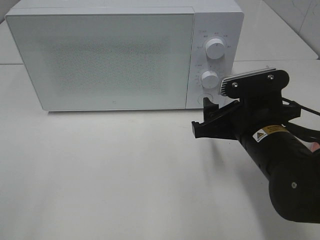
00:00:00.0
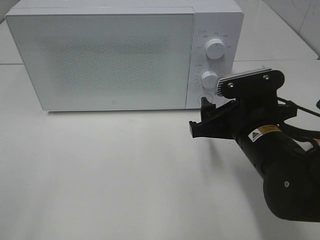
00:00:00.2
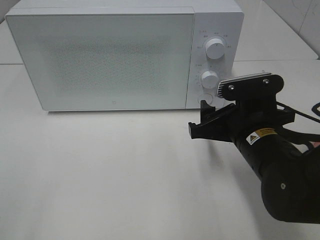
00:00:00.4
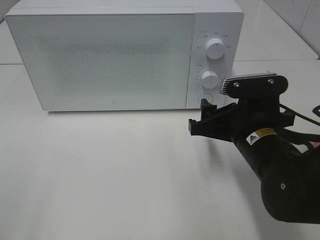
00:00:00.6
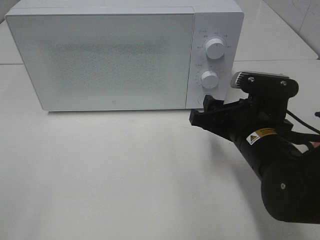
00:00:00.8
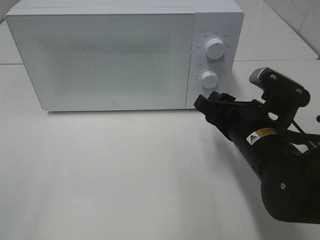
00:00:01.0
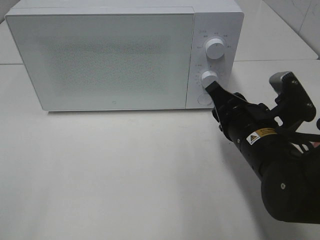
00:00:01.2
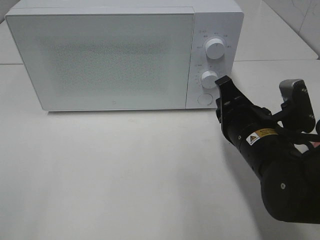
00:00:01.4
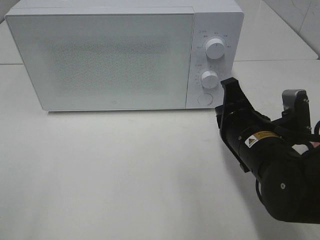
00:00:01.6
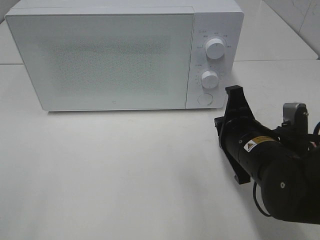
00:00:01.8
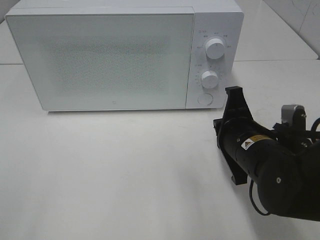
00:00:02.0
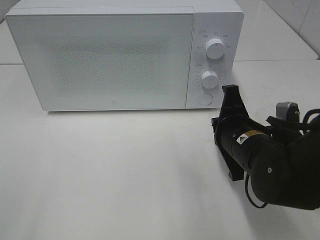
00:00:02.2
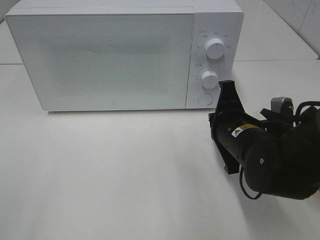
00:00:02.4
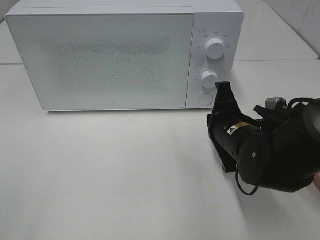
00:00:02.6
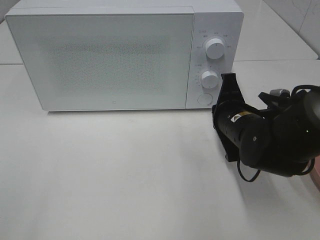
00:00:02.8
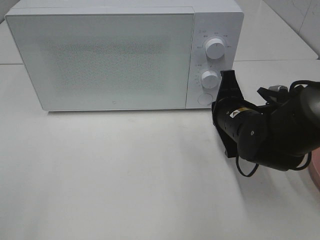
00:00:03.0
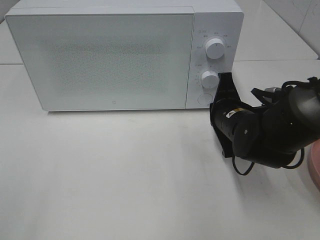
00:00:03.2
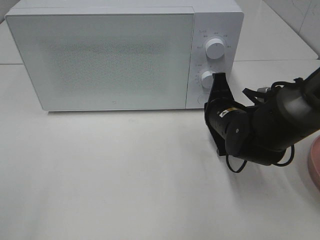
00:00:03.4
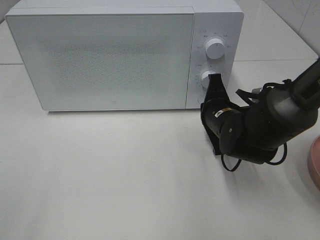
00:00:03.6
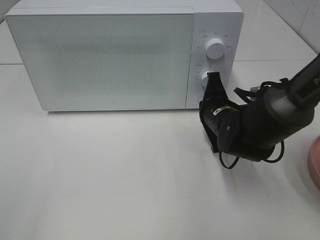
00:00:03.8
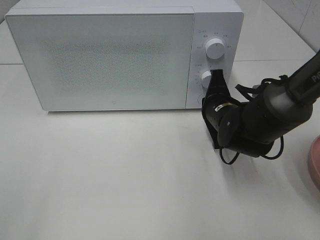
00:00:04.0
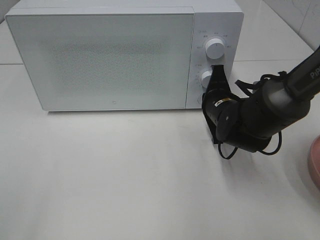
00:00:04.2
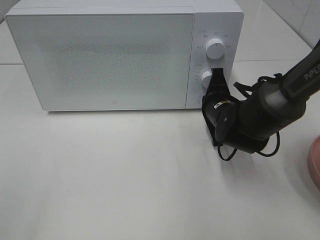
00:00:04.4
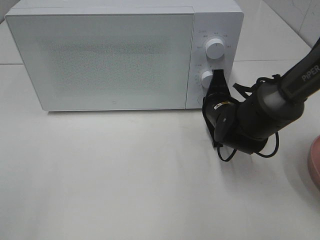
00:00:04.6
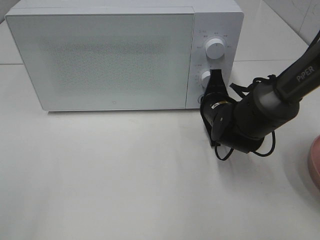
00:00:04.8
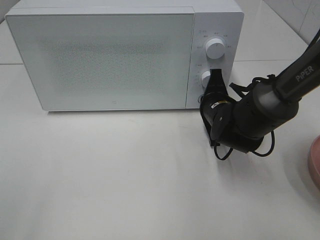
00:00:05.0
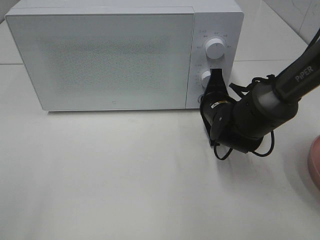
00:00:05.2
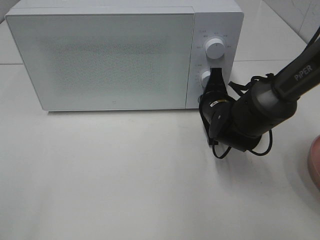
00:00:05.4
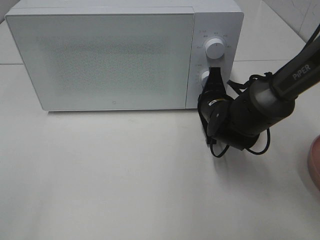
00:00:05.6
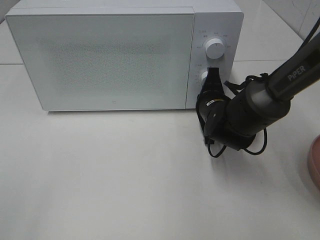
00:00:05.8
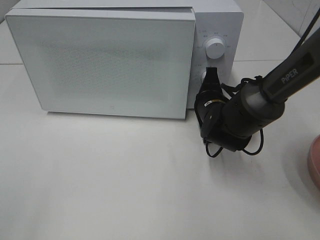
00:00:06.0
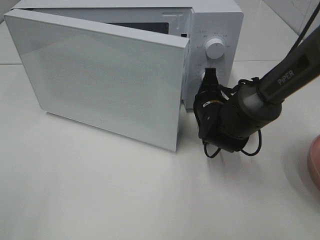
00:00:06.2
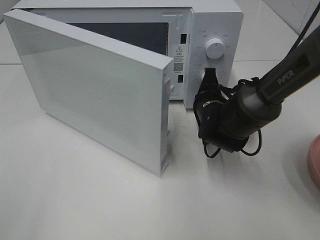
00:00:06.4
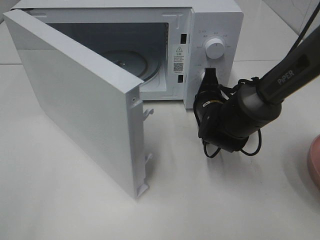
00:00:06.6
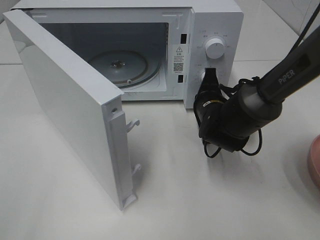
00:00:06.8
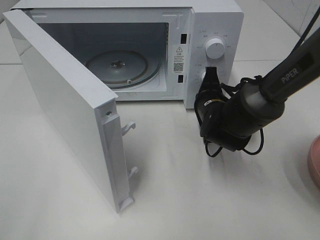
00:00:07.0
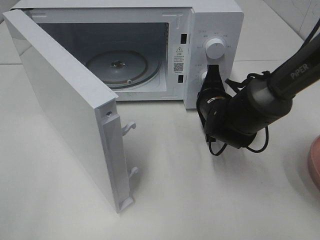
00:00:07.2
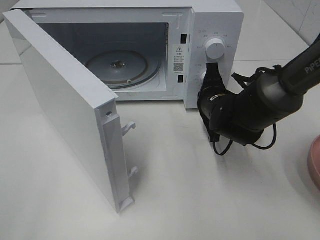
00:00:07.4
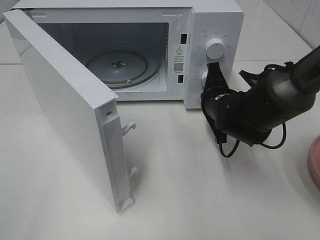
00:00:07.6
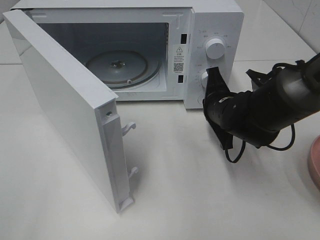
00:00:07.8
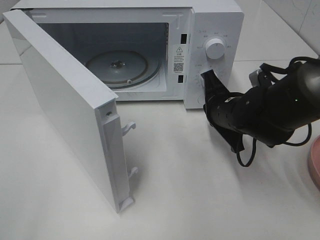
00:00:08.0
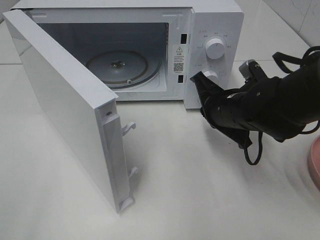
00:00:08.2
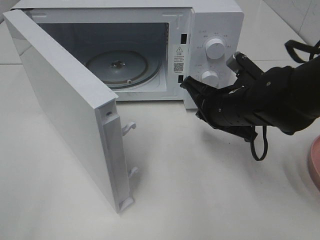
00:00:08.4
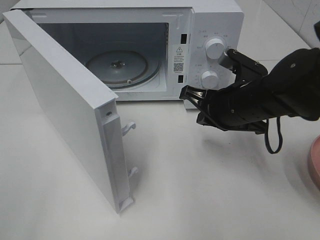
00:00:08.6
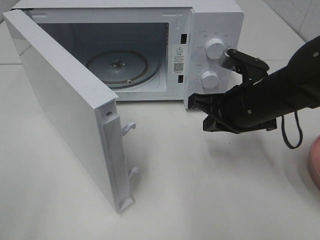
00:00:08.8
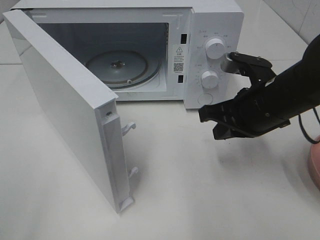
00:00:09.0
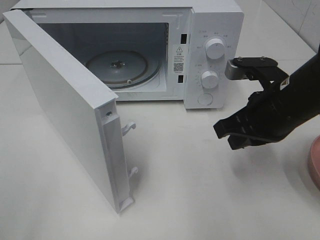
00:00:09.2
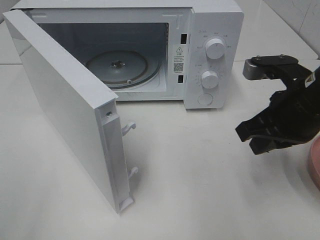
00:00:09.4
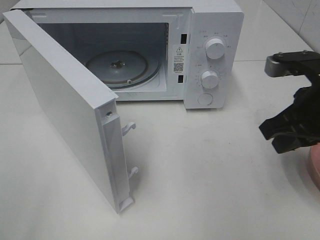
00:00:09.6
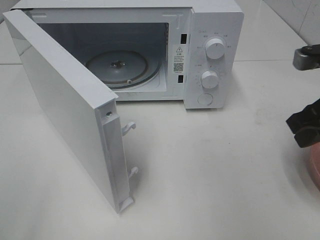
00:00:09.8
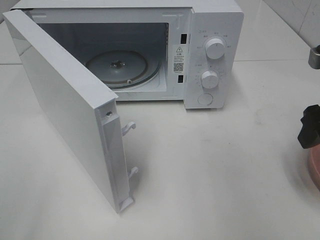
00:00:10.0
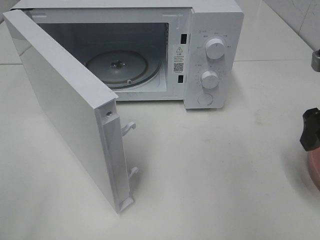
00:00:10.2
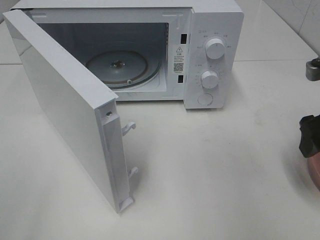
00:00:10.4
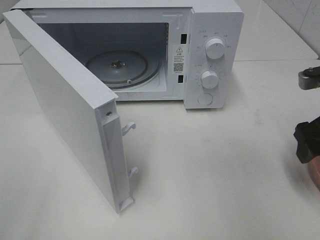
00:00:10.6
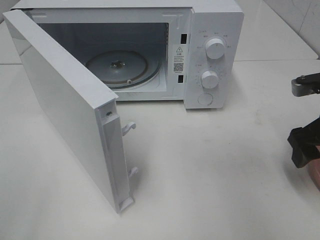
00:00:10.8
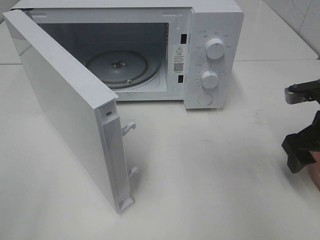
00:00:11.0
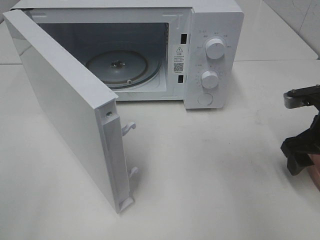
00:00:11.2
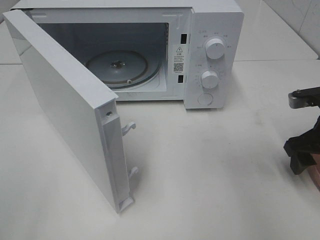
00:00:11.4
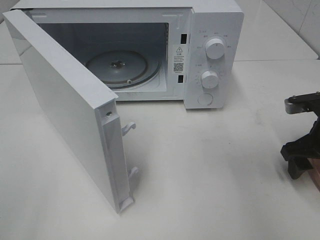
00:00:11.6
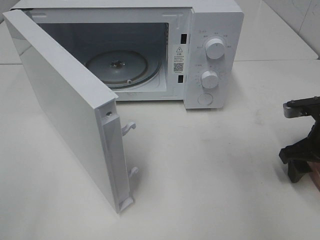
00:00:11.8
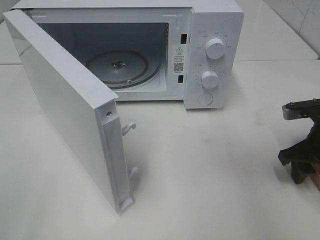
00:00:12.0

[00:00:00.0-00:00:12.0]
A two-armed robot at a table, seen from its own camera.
Task of the whole recording: Heat the burger.
Step, 00:00:00.0 to 00:00:07.6: Right hand: press the switch.
00:00:00.0 to 00:00:01.6: The right gripper closes.
00:00:01.6 to 00:00:03.0: The right gripper is displaced forward by roughly 5 cm.
00:00:03.0 to 00:00:04.4: The right gripper shifts approximately 5 cm forward.
00:00:04.4 to 00:00:06.0: The grippers make only small movements.
00:00:07.6 to 00:00:09.0: The right gripper travels upward and backward by some 10 cm.
00:00:09.0 to 00:00:10.4: The right gripper goes some 10 cm to the right, and opens up.
00:00:10.4 to 00:00:12.0: The right gripper heads downward, covering approximately 10 cm.

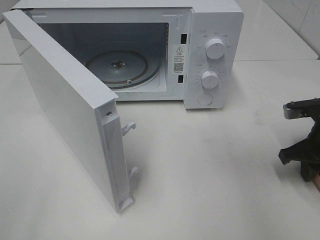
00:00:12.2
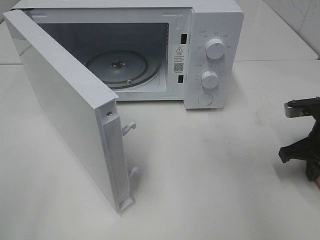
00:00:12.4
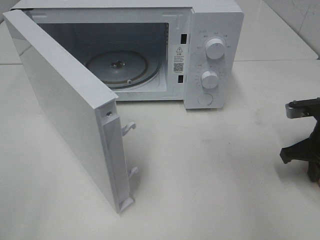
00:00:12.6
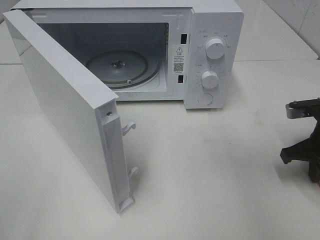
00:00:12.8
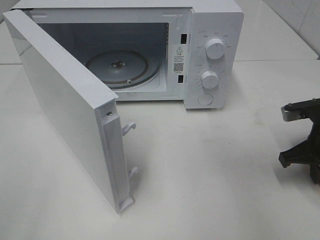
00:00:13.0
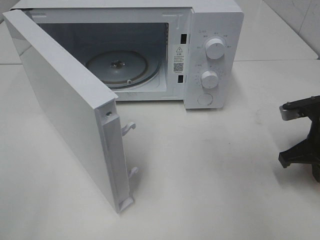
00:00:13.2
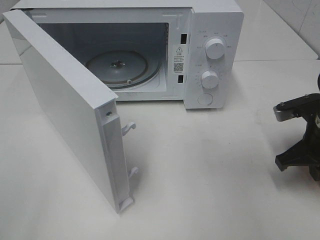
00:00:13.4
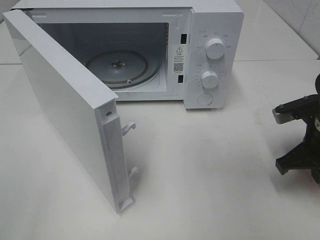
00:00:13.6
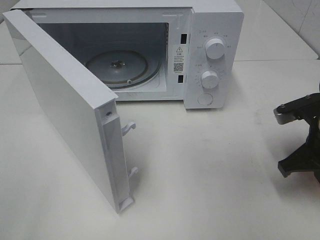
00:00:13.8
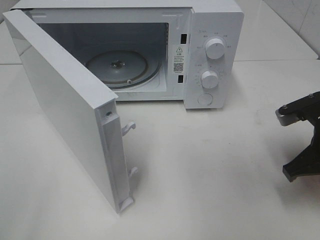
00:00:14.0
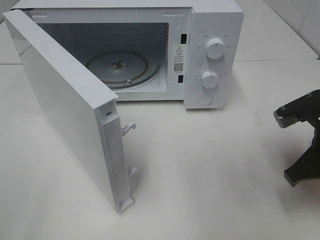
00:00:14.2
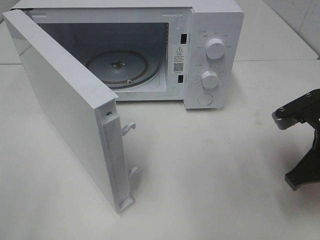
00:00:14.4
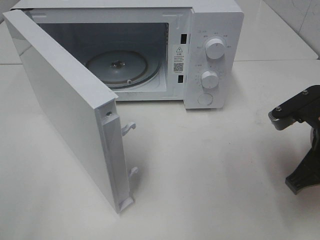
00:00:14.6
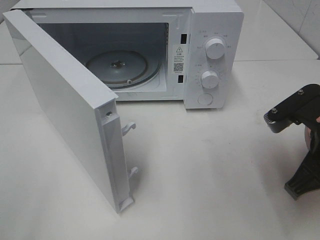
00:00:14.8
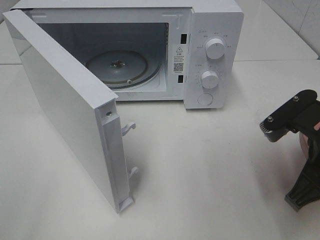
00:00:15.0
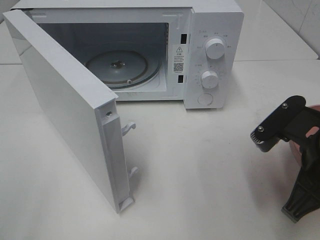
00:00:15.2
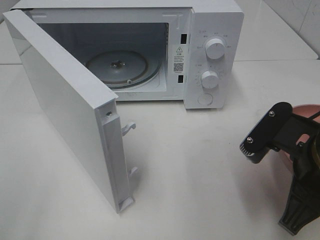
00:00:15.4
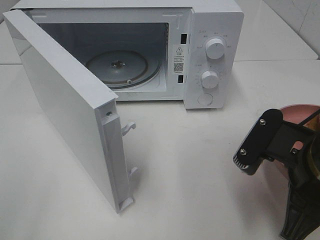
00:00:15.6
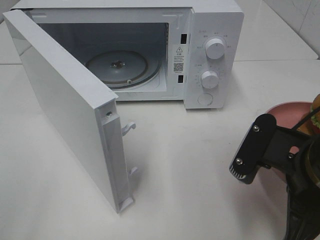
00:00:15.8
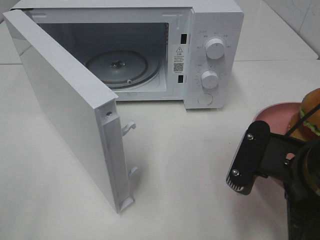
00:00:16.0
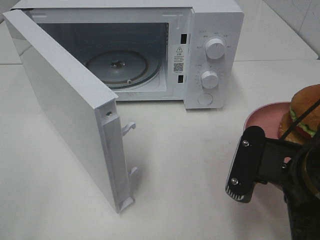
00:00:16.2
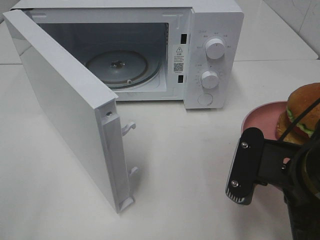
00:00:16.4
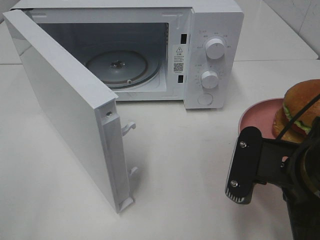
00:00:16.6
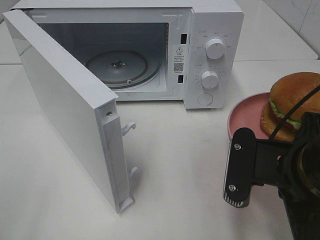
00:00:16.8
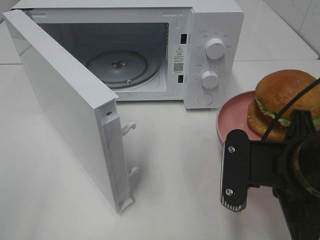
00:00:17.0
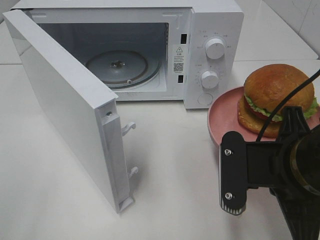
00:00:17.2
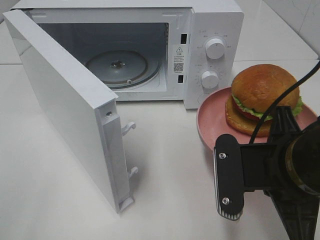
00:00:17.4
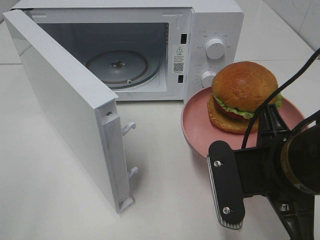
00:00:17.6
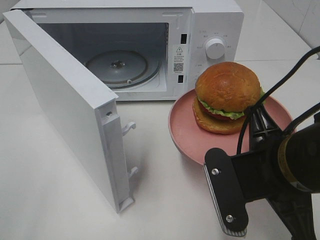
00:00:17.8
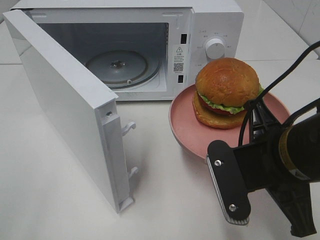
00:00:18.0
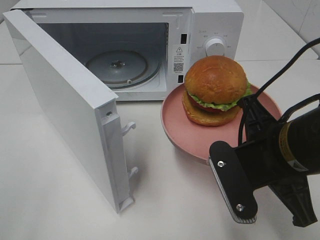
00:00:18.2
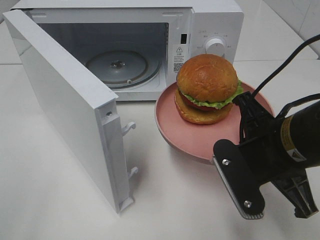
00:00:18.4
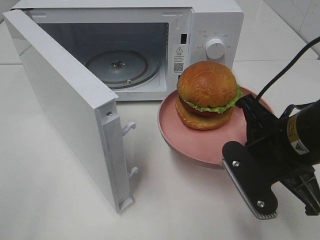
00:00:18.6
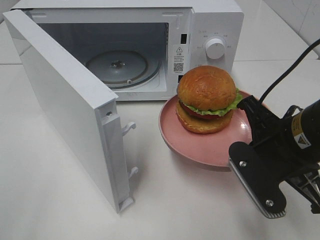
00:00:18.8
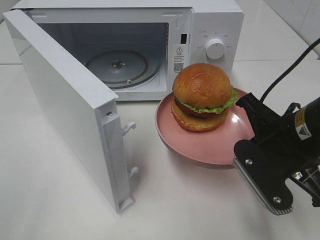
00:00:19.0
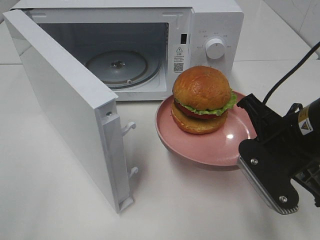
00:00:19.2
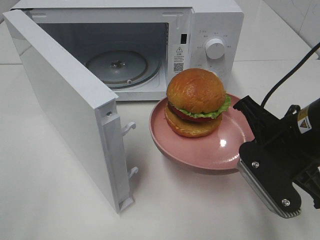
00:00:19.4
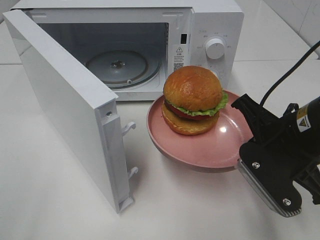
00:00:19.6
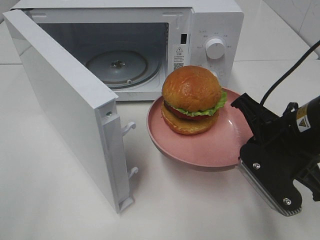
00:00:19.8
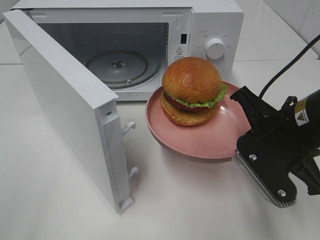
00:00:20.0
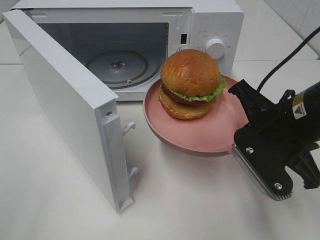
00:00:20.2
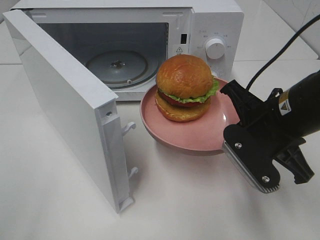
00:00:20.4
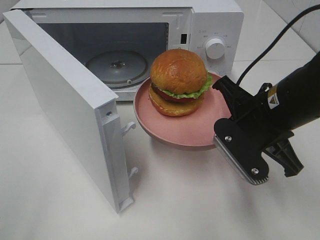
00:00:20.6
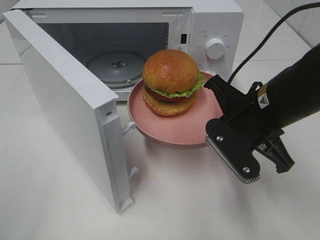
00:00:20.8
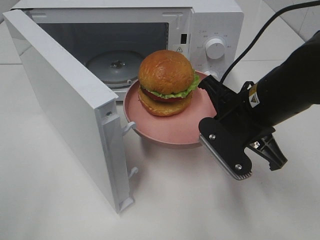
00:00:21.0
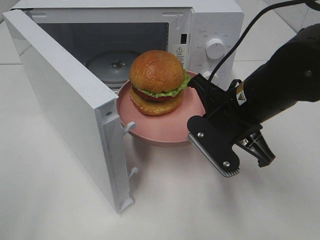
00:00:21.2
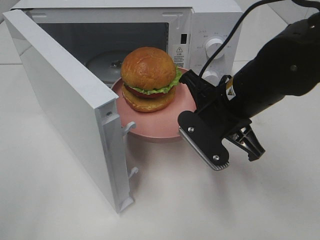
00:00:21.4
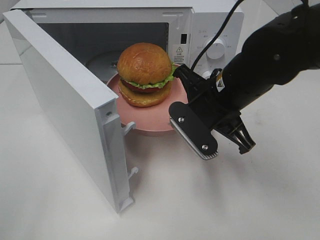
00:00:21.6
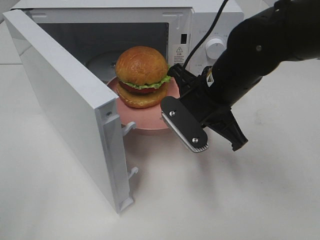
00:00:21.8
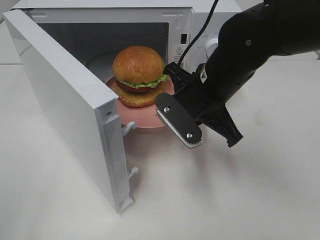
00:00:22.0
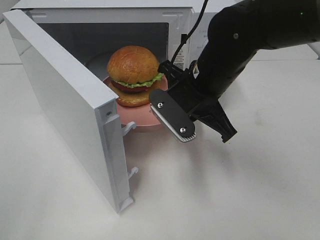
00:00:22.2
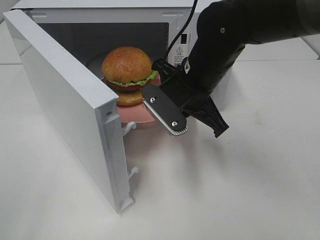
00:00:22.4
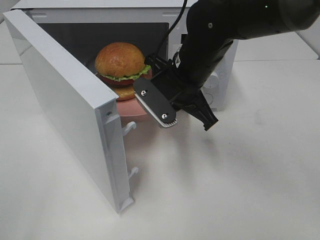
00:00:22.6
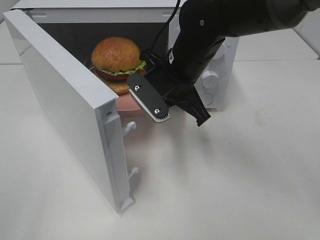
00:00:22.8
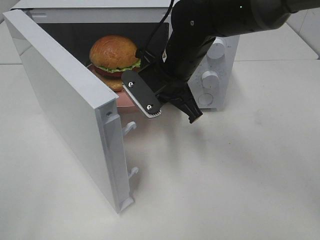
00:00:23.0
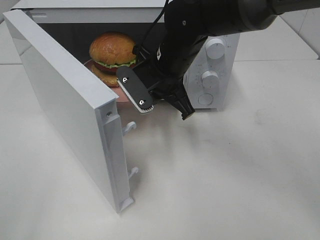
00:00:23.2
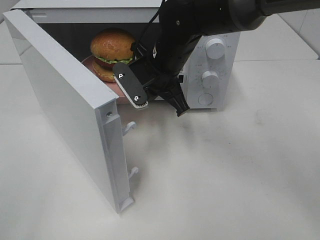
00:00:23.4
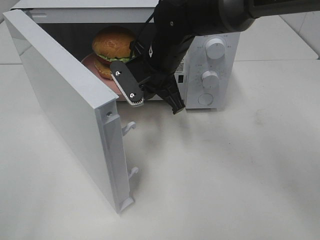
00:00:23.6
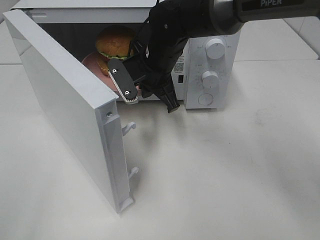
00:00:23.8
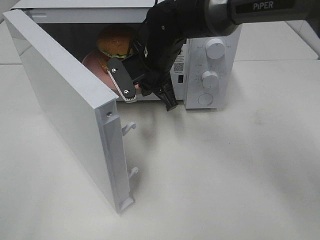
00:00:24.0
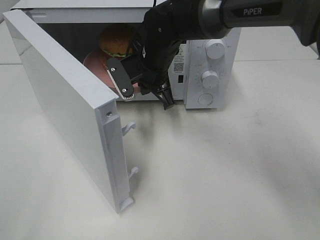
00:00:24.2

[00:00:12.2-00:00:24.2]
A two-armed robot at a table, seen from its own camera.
Task of the whole recording: Heat the burger.
00:00:12.2 to 00:00:13.8: The right gripper moves approximately 5 cm.
00:00:13.8 to 00:00:15.2: The right gripper heads backward and to the left, covering approximately 10 cm.
00:00:18.2 to 00:00:19.8: The grippers stay close to where they were, moving slightly.
00:00:19.8 to 00:00:21.2: The right gripper moves to the left, about 5 cm.
00:00:21.2 to 00:00:22.6: The right gripper travels forward and to the left by about 10 cm.
00:00:22.6 to 00:00:24.2: The right gripper shifts roughly 10 cm forward and to the left.
